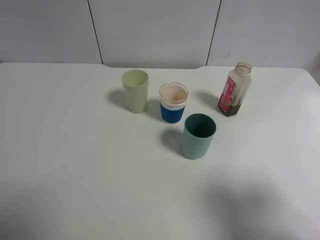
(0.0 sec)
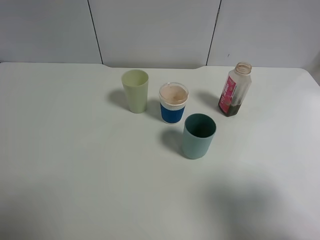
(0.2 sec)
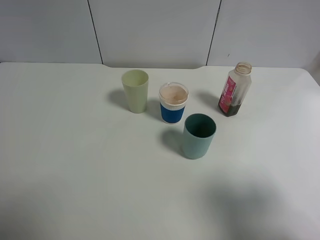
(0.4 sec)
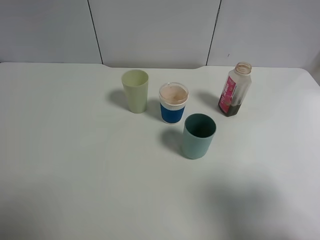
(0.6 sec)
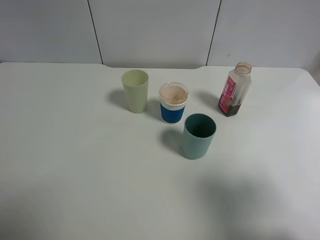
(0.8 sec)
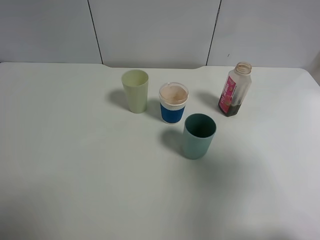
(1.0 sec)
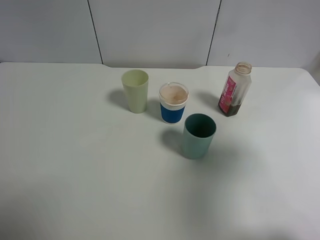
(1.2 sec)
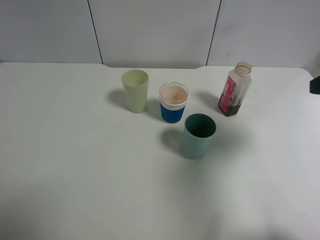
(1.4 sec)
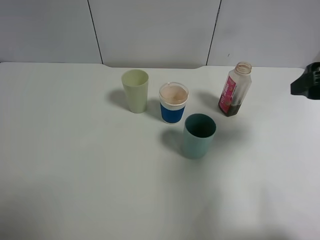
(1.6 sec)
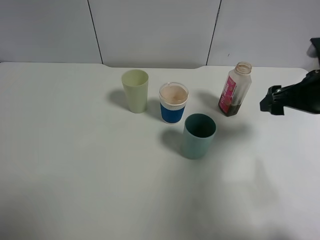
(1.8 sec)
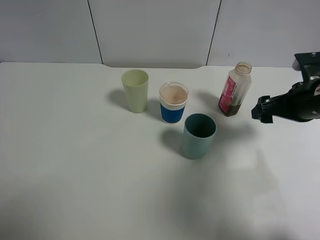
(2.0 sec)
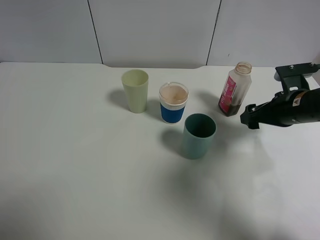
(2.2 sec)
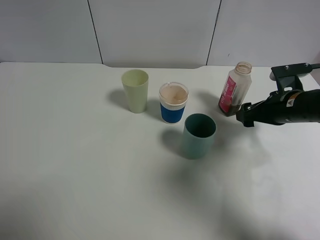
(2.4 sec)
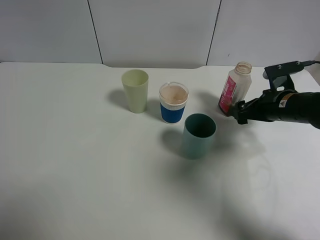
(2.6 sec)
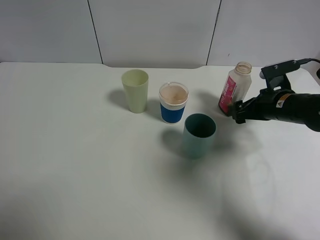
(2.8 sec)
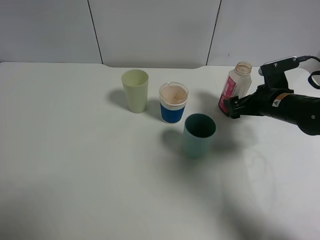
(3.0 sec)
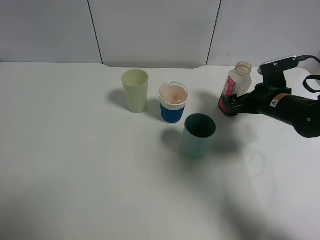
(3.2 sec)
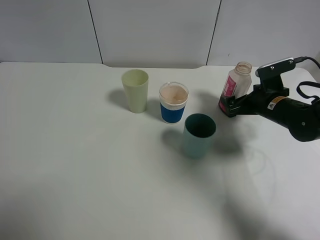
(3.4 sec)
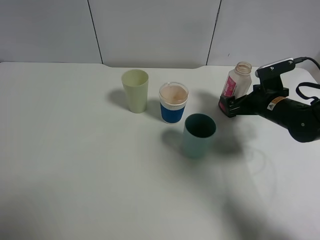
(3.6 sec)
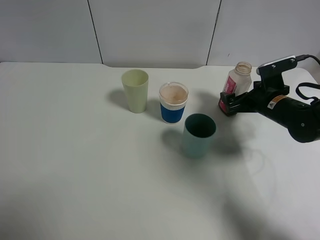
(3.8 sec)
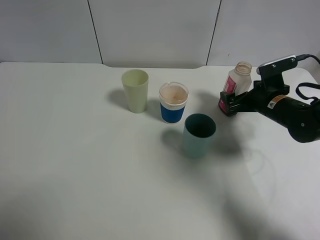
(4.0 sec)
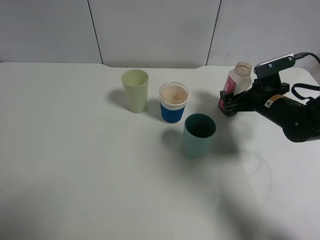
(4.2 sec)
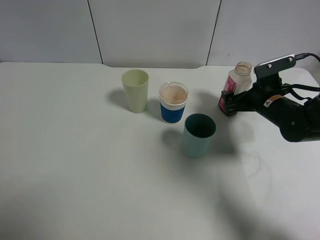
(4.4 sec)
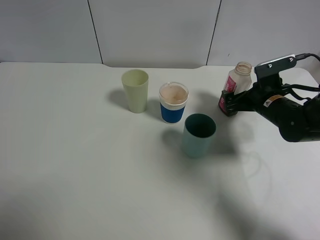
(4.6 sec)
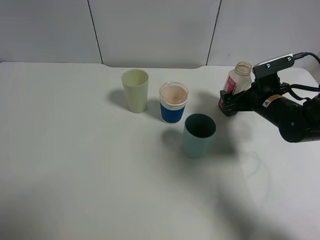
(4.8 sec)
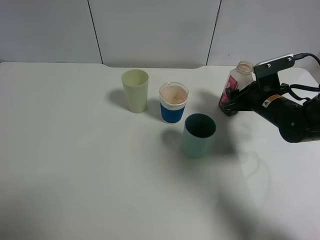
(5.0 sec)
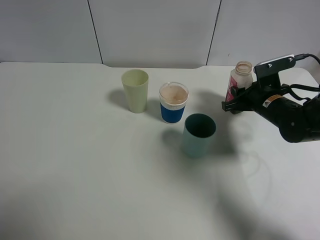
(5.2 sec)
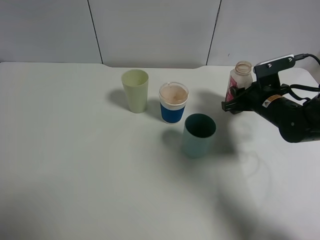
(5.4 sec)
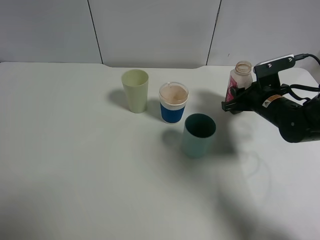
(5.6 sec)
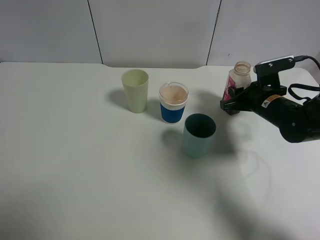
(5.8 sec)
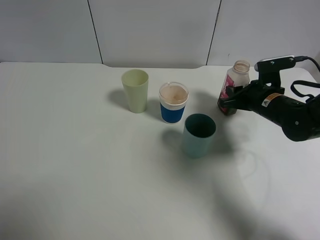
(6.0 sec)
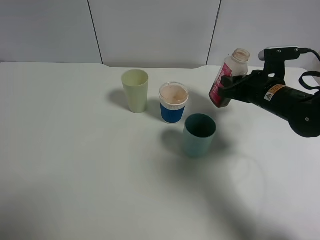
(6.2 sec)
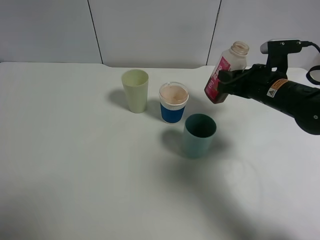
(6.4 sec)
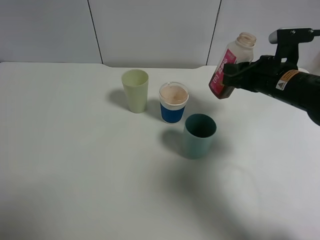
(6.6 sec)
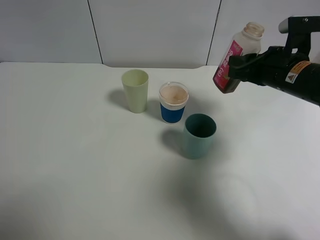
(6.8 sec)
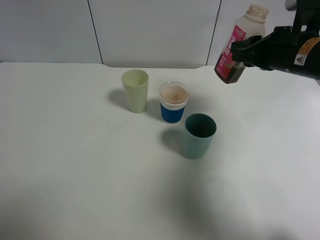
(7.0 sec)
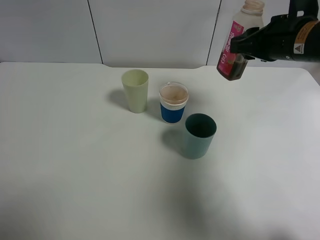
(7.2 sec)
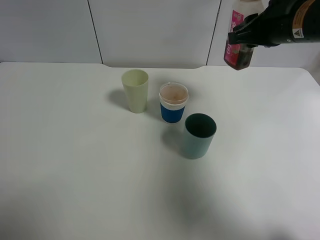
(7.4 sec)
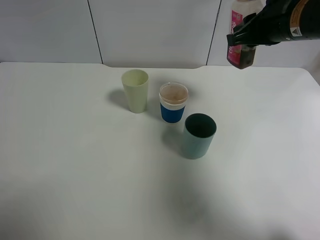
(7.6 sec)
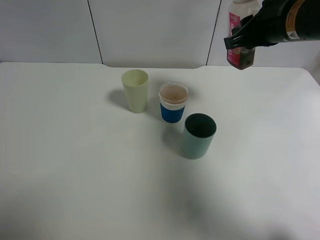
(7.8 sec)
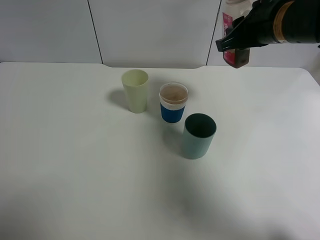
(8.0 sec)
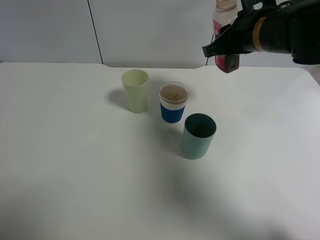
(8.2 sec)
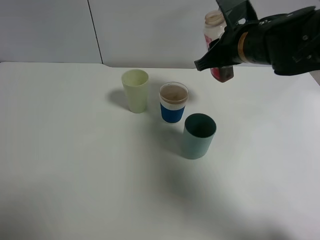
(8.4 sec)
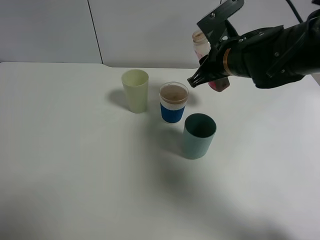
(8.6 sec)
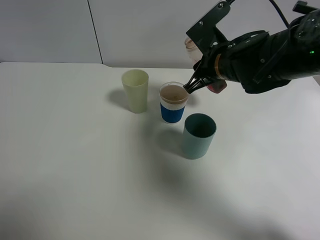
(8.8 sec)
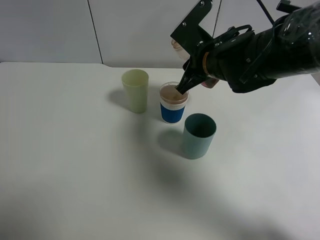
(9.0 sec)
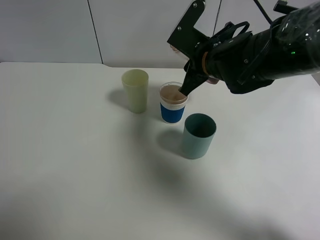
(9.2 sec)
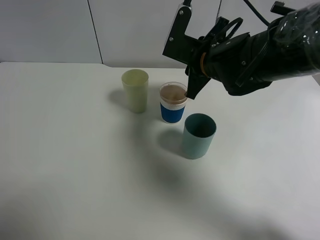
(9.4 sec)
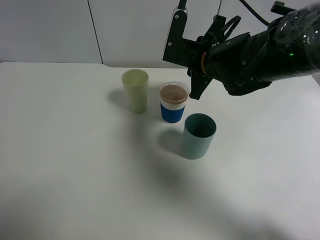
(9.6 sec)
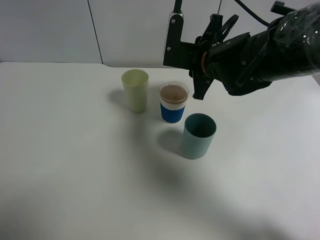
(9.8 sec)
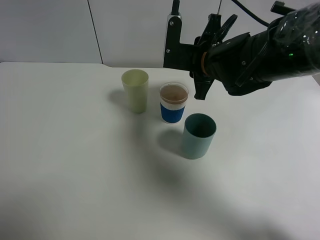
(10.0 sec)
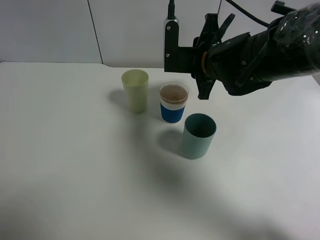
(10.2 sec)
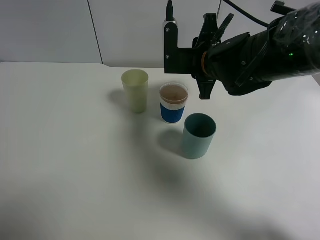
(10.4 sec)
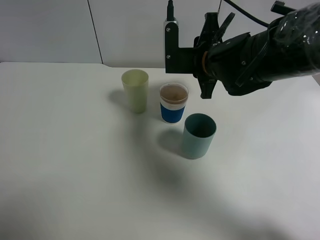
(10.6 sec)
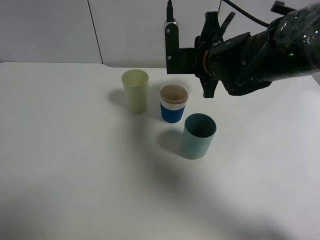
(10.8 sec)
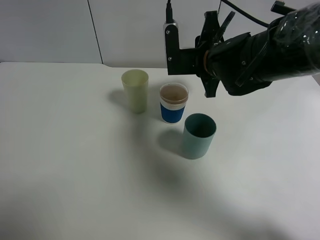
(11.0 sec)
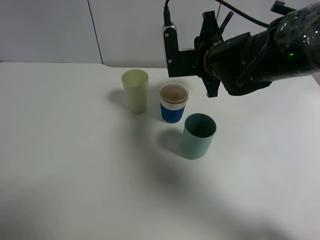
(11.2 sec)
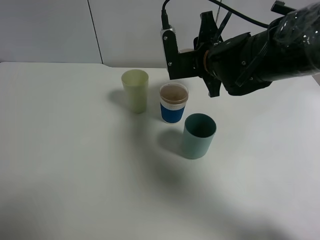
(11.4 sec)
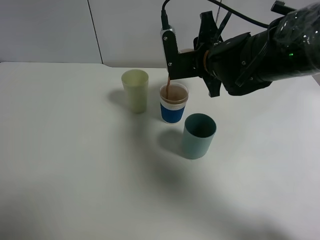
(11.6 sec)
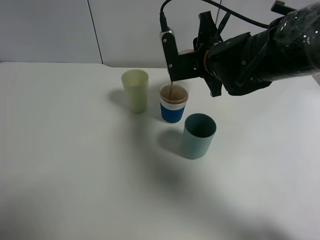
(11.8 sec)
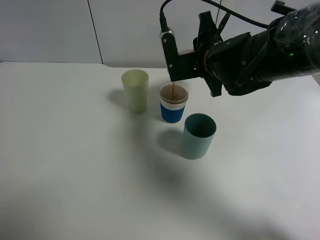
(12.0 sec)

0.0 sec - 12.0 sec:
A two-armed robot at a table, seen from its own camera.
Task of the whole recording: use a gripper to hold the bottle of the drink and pour it into a random cup.
Step, 0.0 sec - 5.2 sec: Grasp the cranberry juice bottle with the right gripper.
0.0 sec - 1.6 sec: The right gripper travels forward by roughly 20 cm.
1.6 sec - 3.0 sec: The right gripper is displaced downward and forward by some 20 cm.
3.0 sec - 4.4 sec: The grippers move only a little.
4.4 sec - 6.0 sec: The right gripper closes.
6.0 sec - 7.6 sec: The right gripper shifts roughly 15 cm upward.
7.6 sec - 9.0 sec: The right gripper is displaced to the left and downward by some 15 cm.
10.4 sec - 12.0 sec: There are only small adjustments of the grippers.

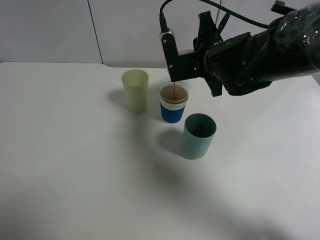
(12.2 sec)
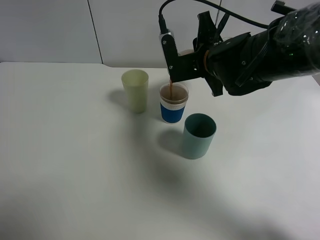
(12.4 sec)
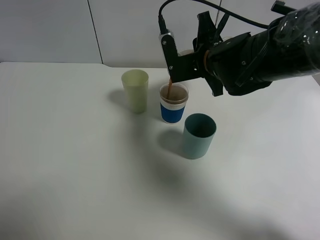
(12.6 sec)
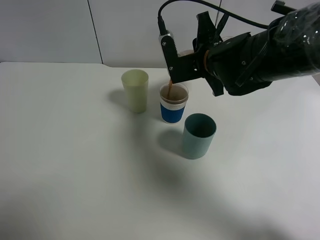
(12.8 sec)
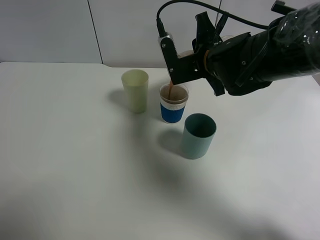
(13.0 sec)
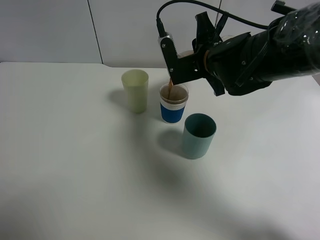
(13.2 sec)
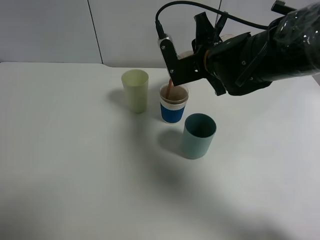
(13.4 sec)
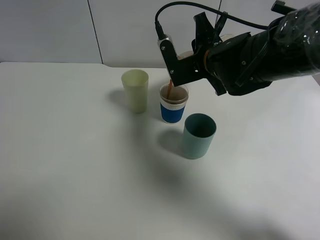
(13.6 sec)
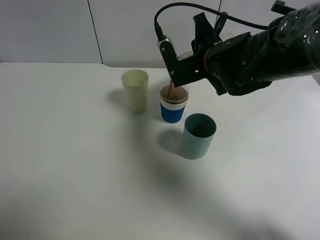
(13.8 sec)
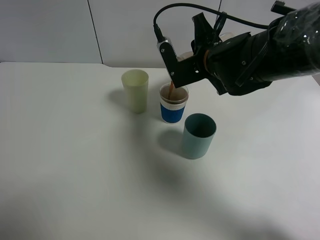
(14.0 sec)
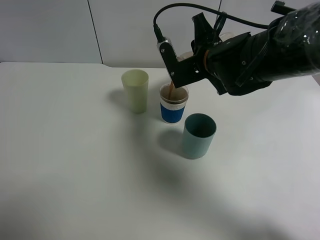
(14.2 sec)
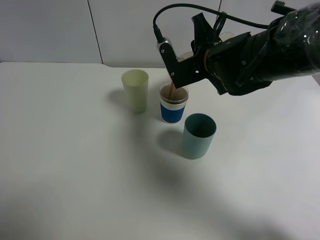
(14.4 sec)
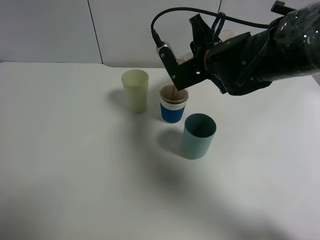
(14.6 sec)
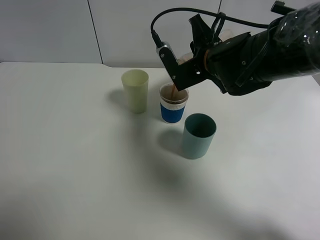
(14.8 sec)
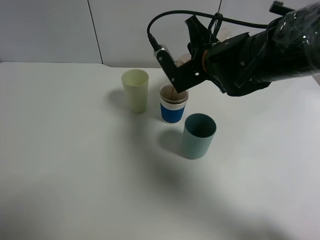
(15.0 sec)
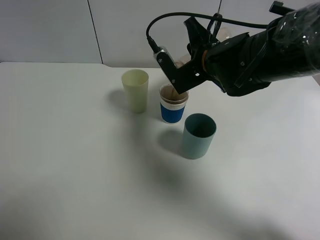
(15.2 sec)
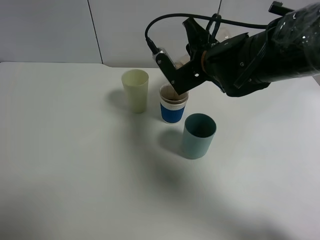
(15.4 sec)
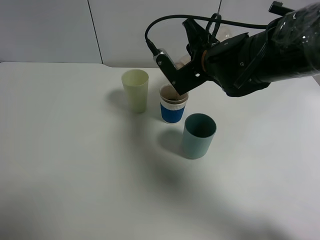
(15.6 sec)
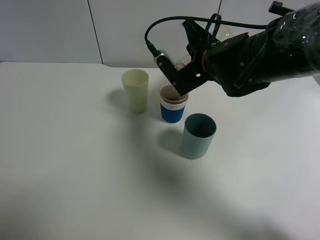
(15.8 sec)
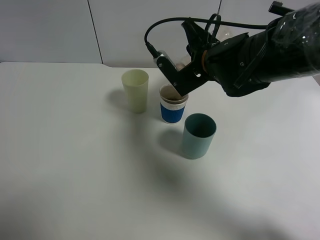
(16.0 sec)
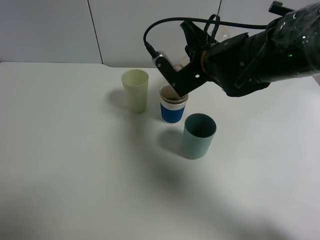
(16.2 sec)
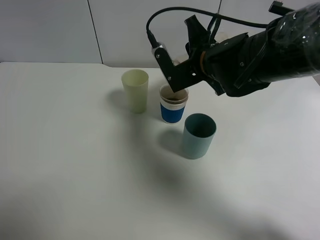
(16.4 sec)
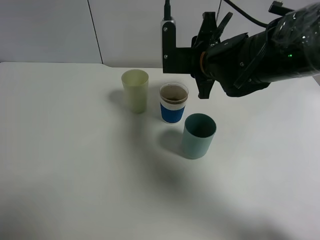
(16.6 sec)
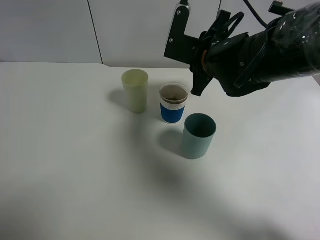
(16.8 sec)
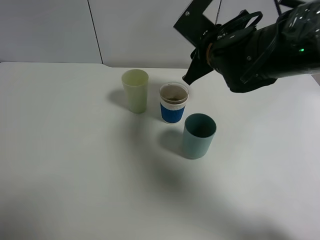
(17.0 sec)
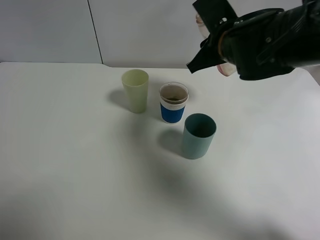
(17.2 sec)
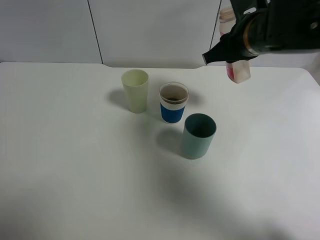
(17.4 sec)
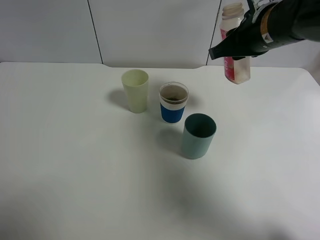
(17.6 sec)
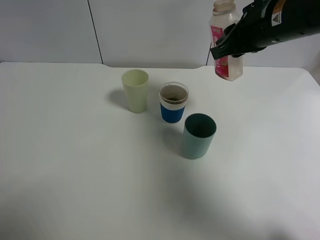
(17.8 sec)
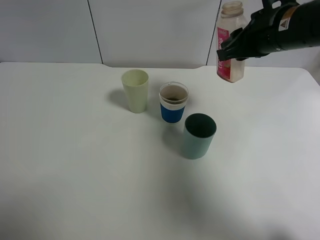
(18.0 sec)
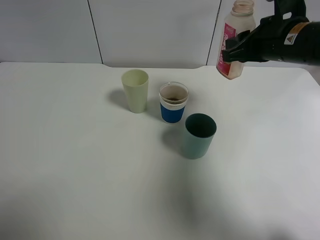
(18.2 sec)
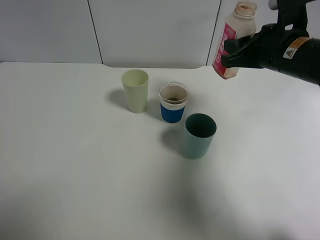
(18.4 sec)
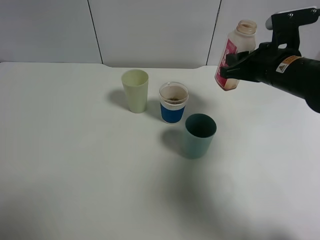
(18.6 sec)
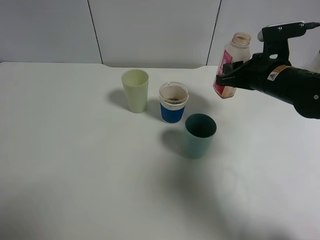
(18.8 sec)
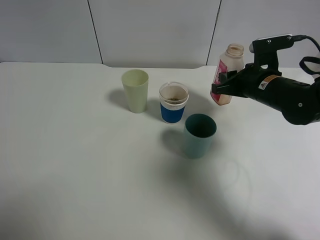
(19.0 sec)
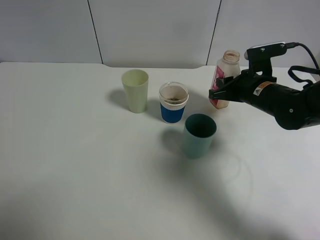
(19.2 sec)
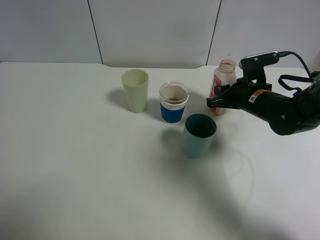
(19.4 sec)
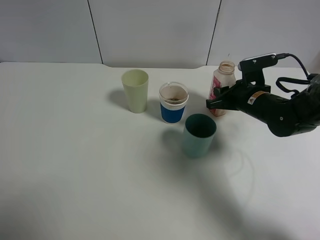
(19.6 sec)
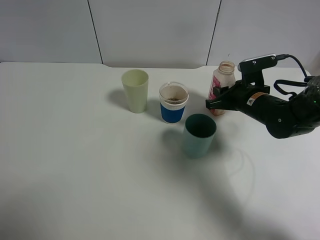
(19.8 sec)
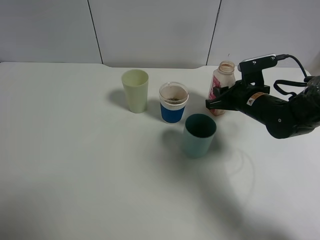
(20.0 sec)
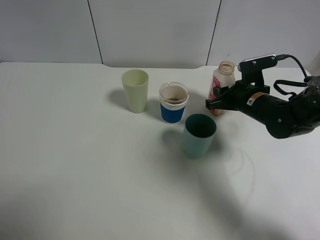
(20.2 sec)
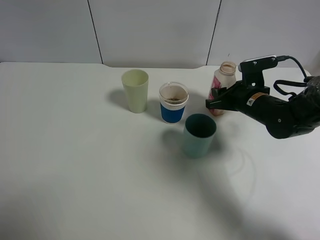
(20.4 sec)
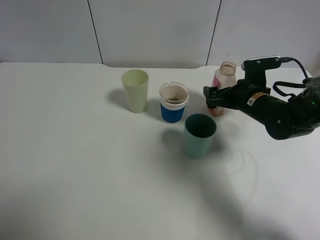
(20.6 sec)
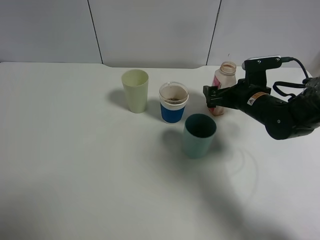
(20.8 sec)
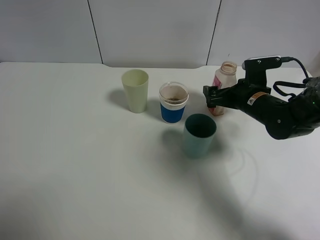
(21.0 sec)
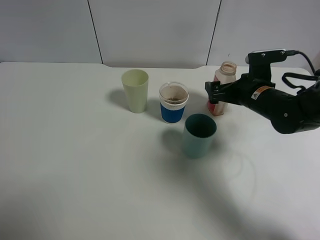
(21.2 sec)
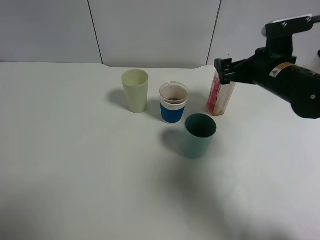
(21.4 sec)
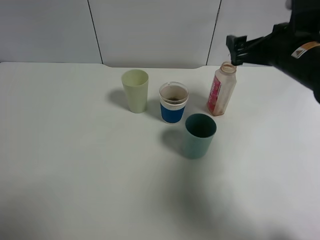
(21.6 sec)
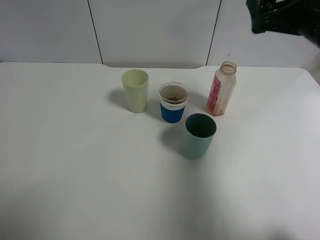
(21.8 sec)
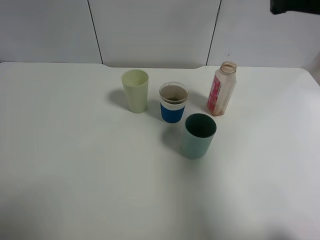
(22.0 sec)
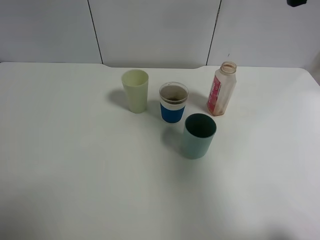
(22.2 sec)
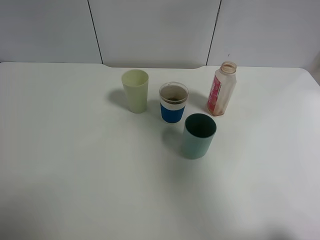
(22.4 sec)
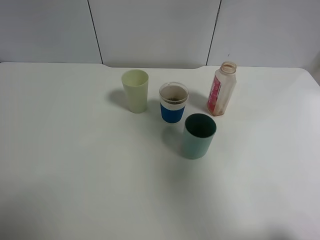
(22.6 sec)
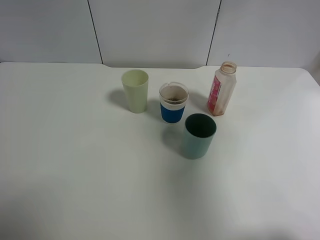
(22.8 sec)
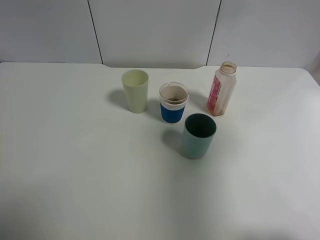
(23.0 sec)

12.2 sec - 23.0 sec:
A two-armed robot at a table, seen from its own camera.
Task of the whole recording: use a gripper to hold the bottle of the drink and pour it into a random cup.
Step, 12.2 sec - 16.0 sec: Pour the cranberry juice into the paper cup with the right gripper.
Step, 16.2 sec - 19.4 sec: Place the cranberry juice bottle on the table with the right gripper.
12.2 sec - 15.2 sec: The grippers move only a little.
16.8 sec - 18.4 sec: The right gripper travels to the right by approximately 10 cm.
18.4 sec - 20.0 sec: The right gripper shifts some 10 cm downward.
20.0 sec - 21.4 sec: The right gripper moves upward, some 10 cm, and opens its fingers.
21.4 sec - 23.0 sec: The right gripper shifts about 30 cm upward and backward.
